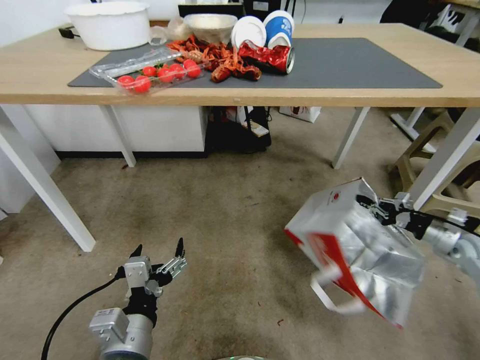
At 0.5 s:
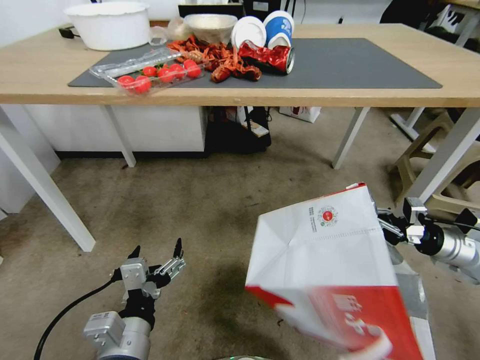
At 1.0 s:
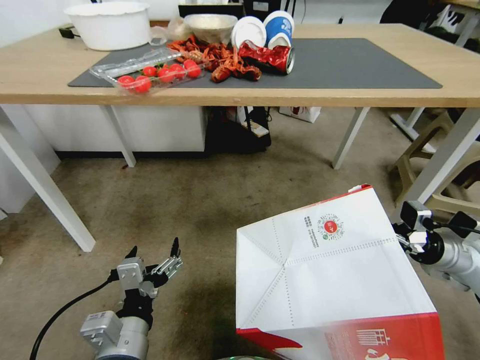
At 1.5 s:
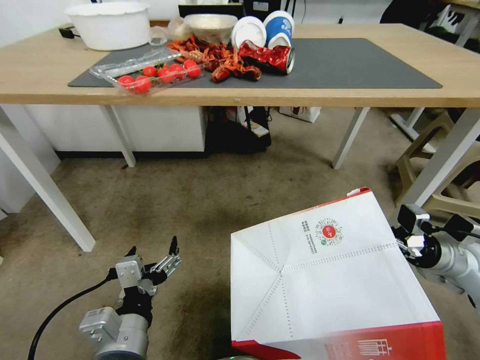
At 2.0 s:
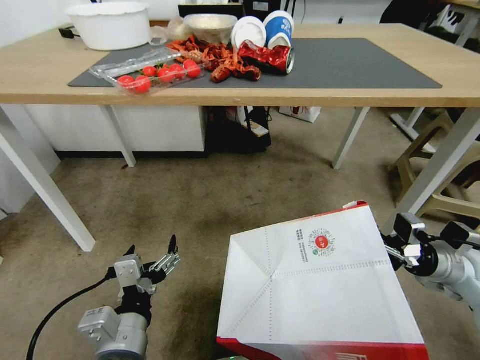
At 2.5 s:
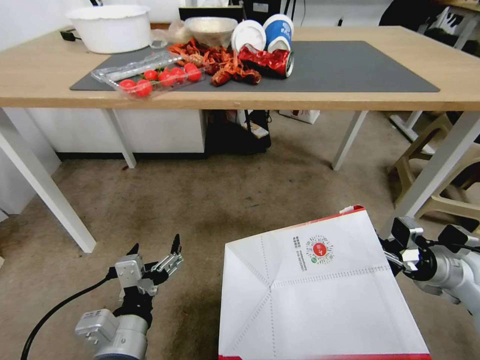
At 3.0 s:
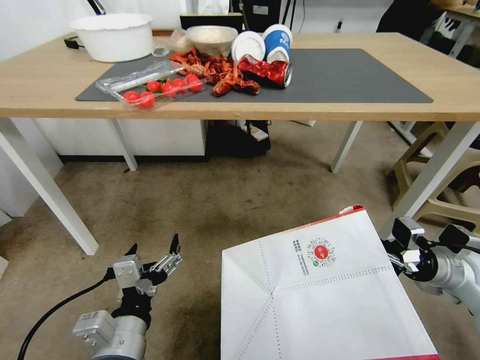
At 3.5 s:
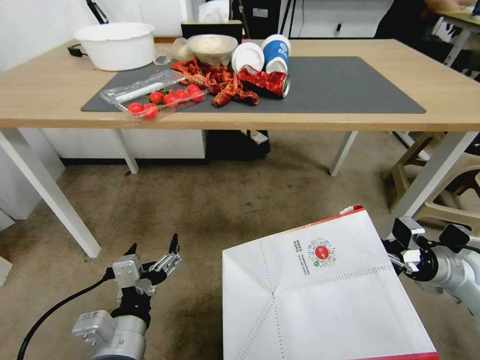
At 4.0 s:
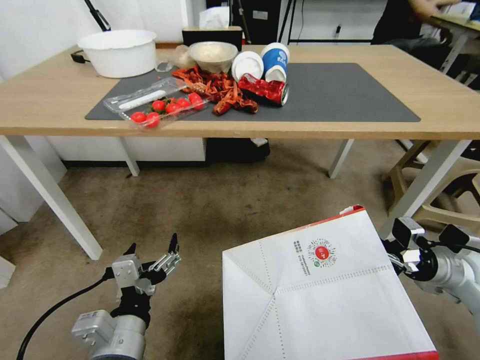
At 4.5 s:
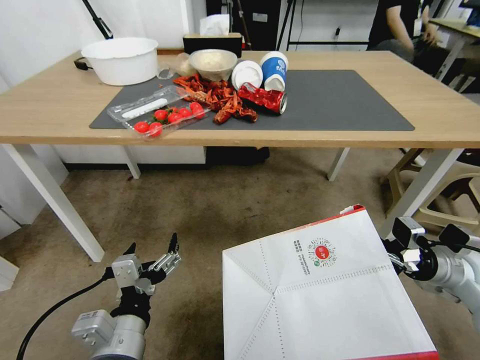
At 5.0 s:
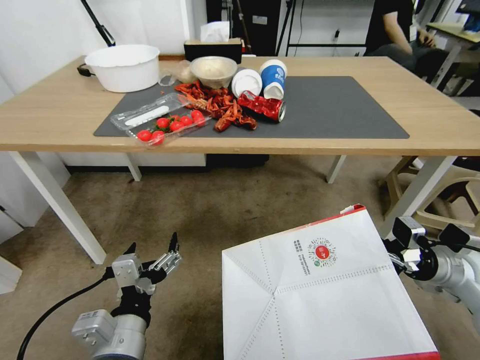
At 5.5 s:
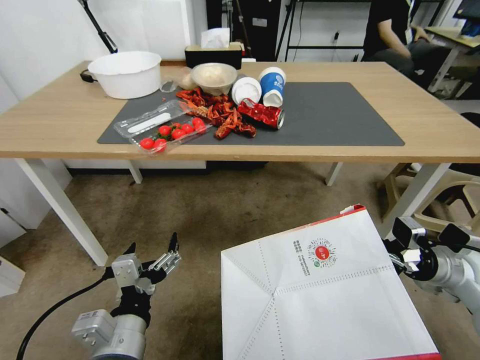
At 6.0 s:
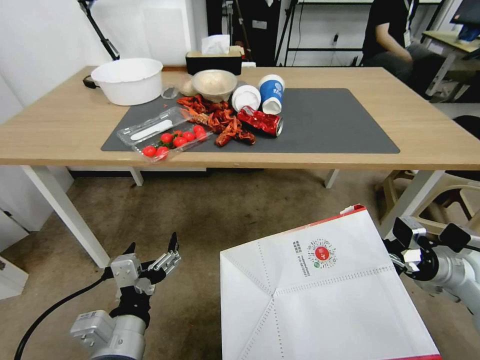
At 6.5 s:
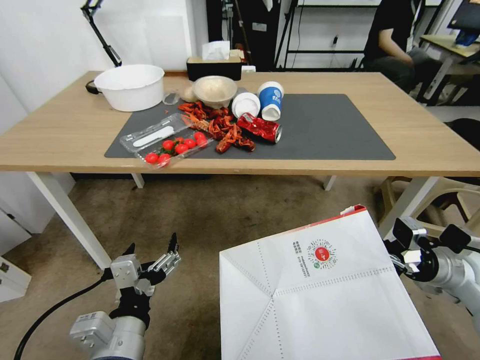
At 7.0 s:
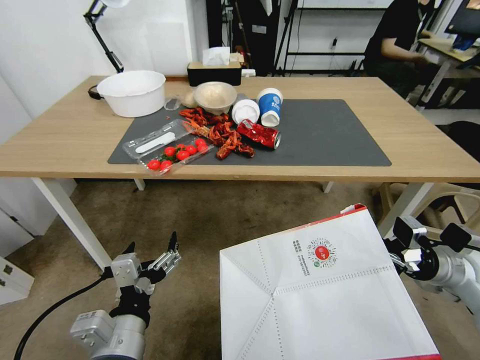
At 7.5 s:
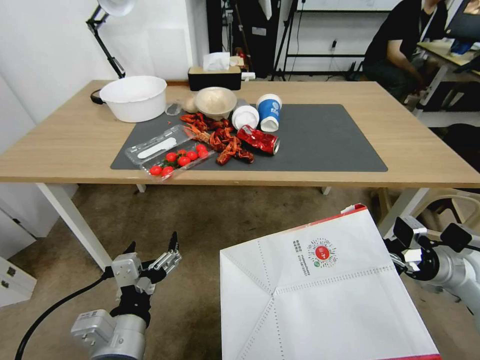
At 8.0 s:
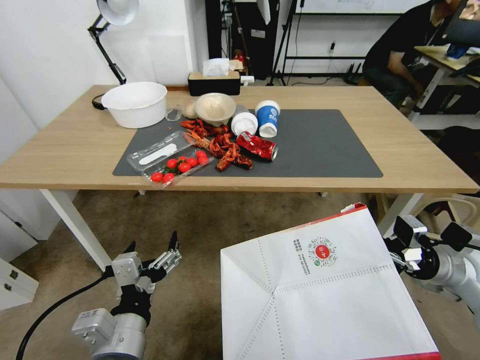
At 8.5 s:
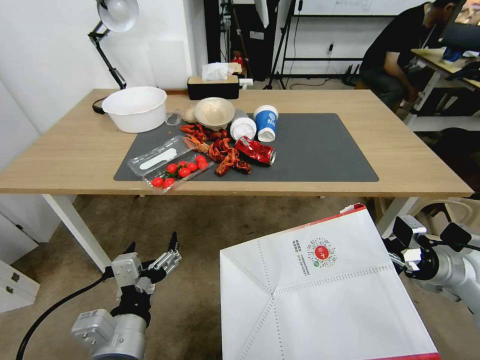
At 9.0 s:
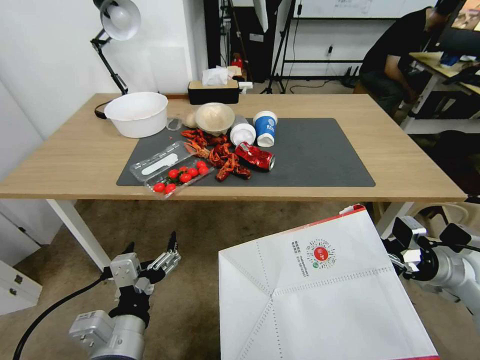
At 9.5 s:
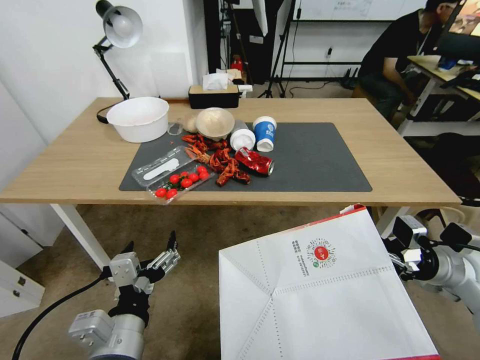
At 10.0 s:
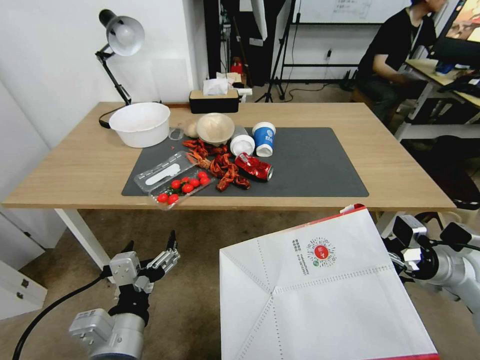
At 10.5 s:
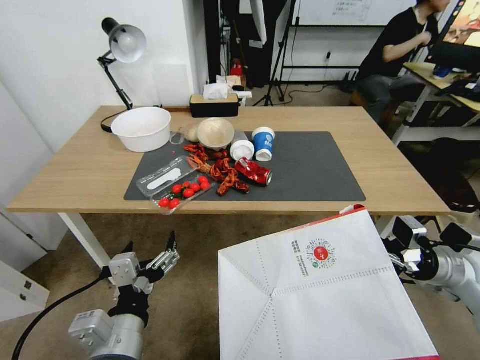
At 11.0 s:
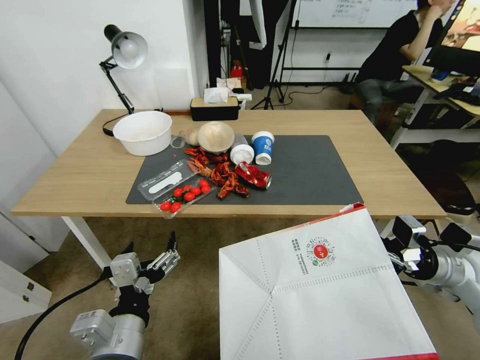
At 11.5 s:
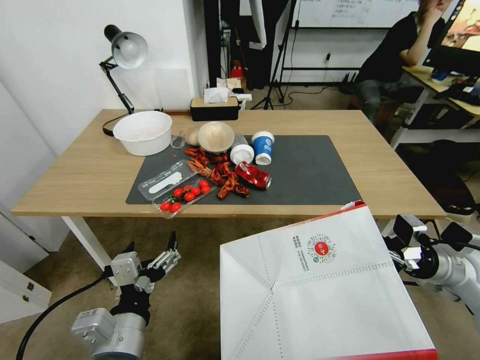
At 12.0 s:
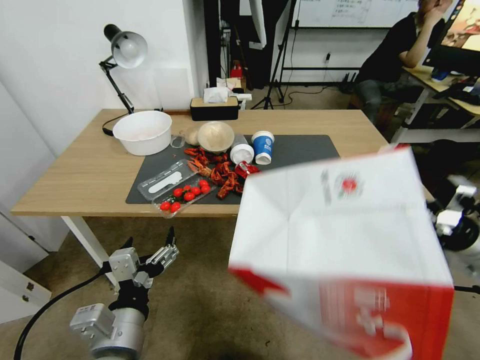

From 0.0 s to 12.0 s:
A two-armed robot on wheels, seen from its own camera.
Task of the whole recording: Pick up the food delivery bag from the floor and place it on the table.
From 0.0 s to 2.0 s: The right gripper moves to the left and backward, roughly 10 cm.
From 10.0 s to 12.0 s: The right gripper travels upward by about 5 cm.

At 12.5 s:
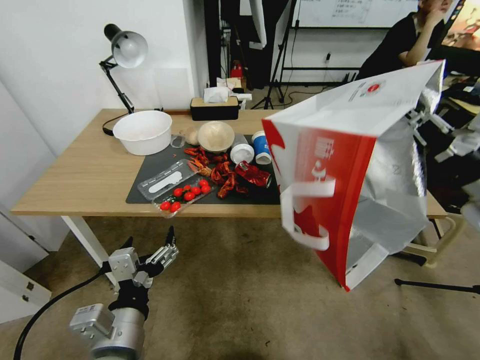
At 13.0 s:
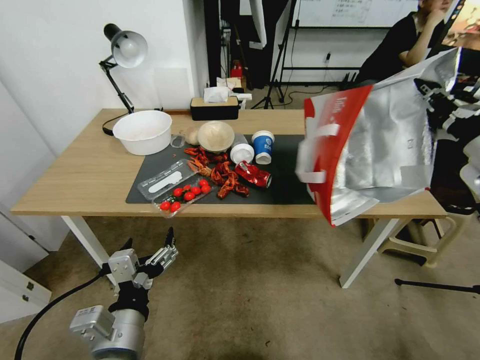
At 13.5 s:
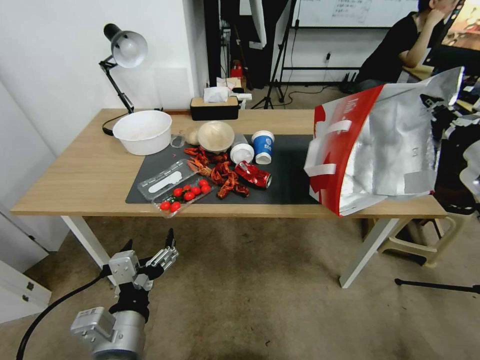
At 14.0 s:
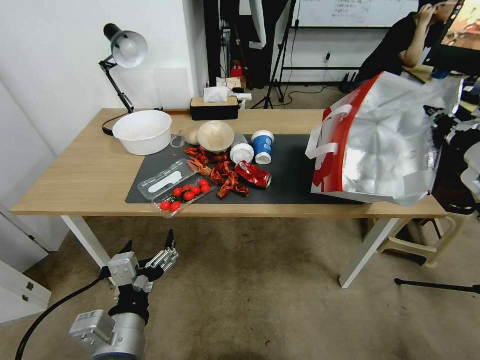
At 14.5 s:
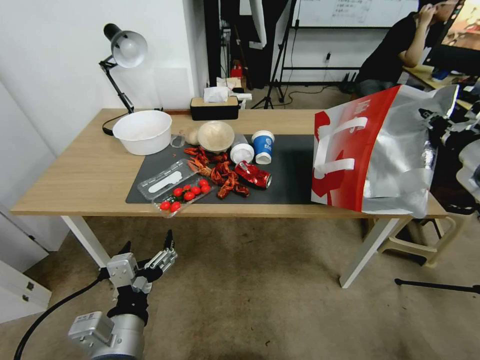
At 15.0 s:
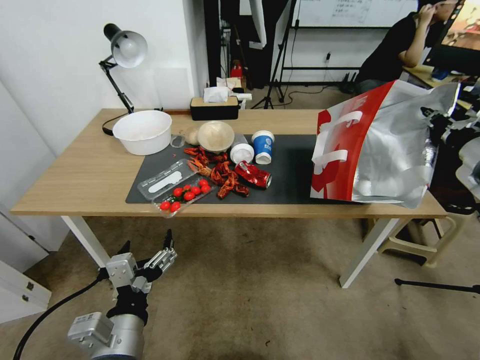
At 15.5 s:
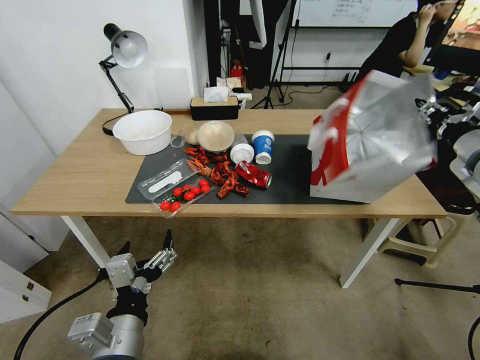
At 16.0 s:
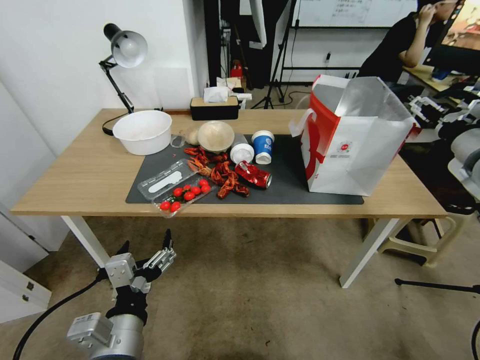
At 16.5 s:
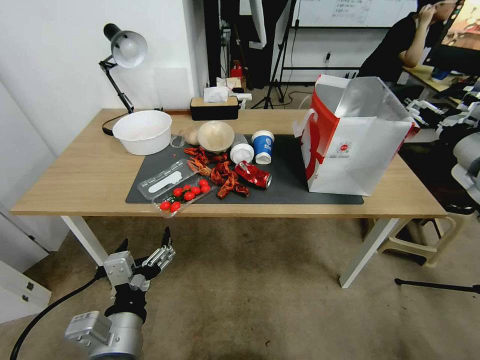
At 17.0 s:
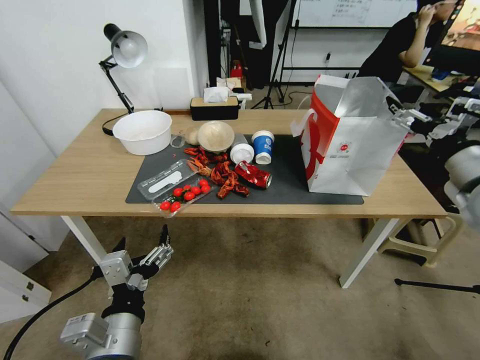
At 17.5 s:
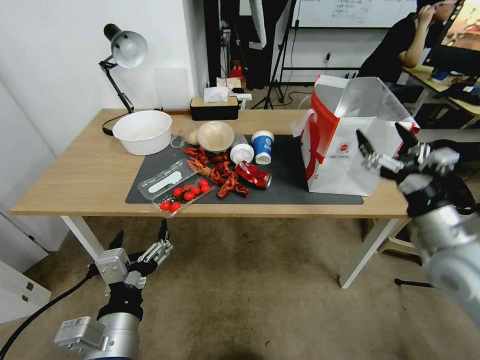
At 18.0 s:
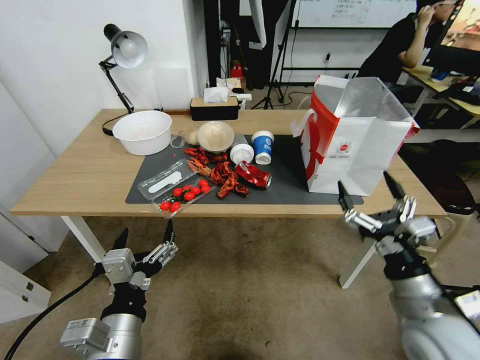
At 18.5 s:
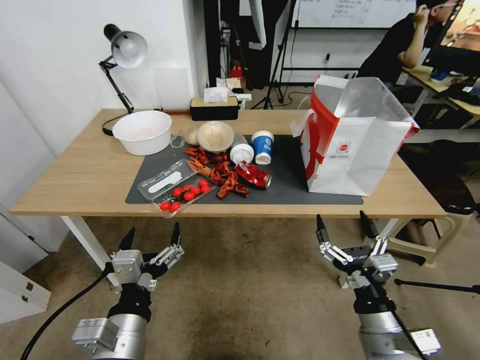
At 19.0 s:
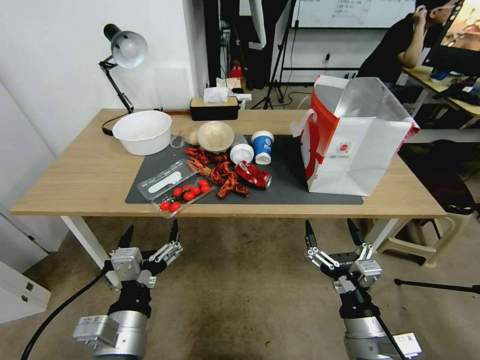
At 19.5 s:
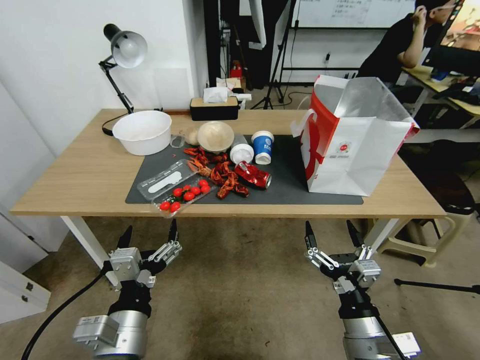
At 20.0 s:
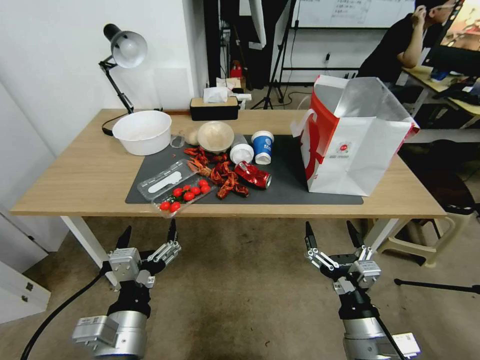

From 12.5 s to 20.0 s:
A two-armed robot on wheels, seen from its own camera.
Task of the whole recording: Pick up the food delivery bag from the floor and place it on the table.
From 12.5 s to 14.5 s: The right gripper heads forward, covering roughly 10 cm.
From 14.5 s to 16.5 s: The right gripper opens.
From 16.5 s to 18.0 s: The right gripper moves backward, downward and to the left, roughly 30 cm.
From 18.0 s to 20.0 s: The right gripper shifts roughly 15 cm to the left, downward and backward.

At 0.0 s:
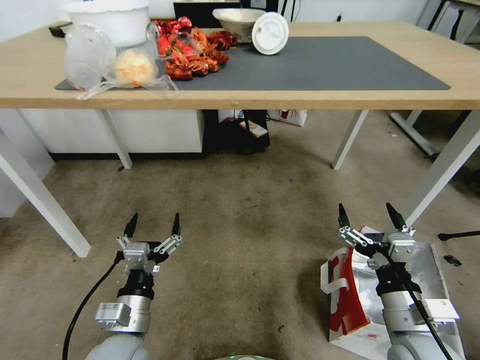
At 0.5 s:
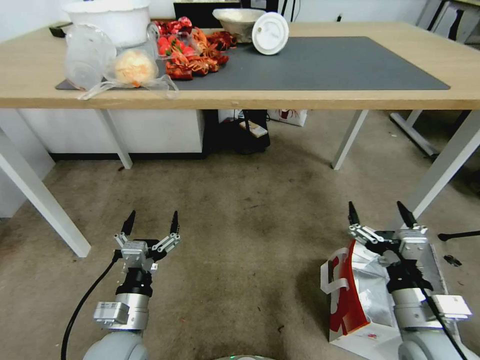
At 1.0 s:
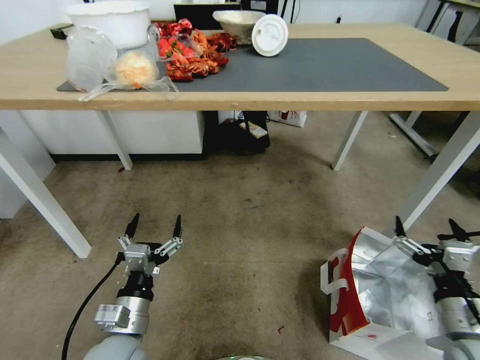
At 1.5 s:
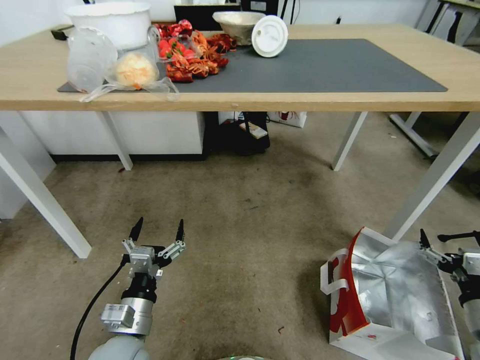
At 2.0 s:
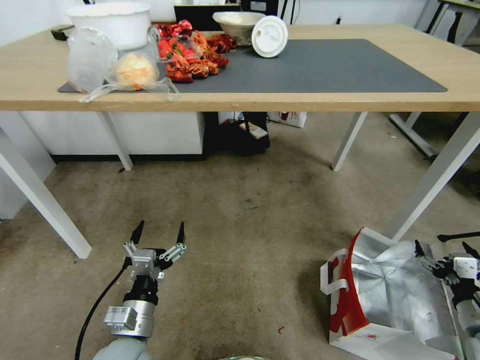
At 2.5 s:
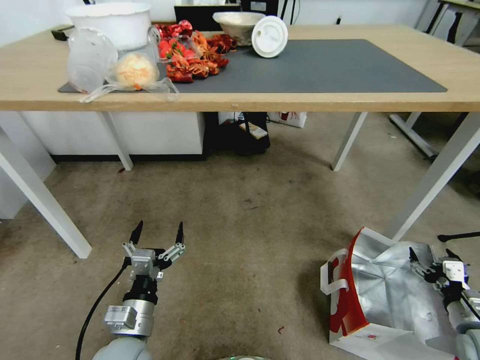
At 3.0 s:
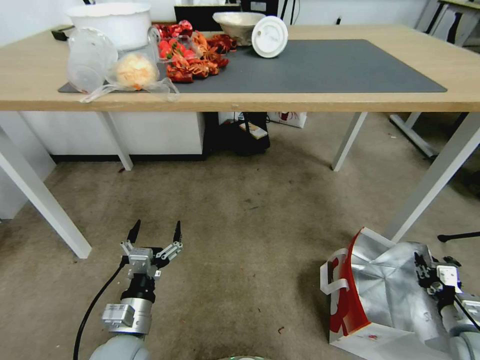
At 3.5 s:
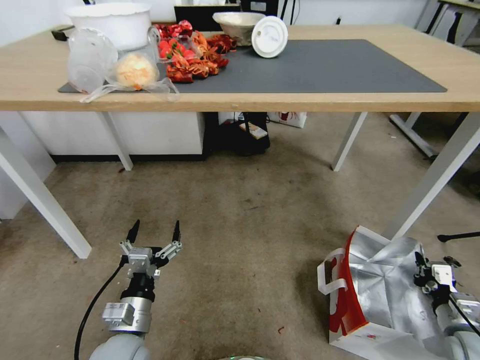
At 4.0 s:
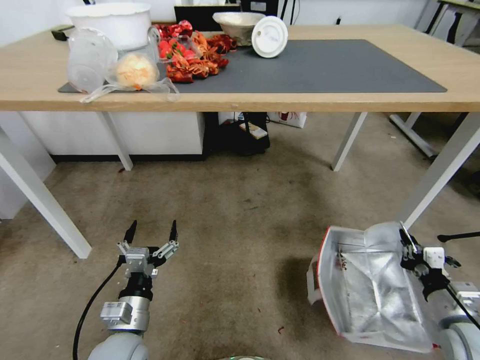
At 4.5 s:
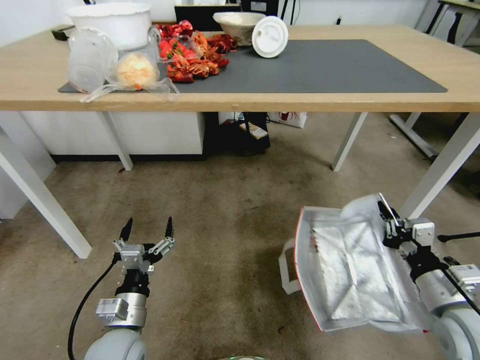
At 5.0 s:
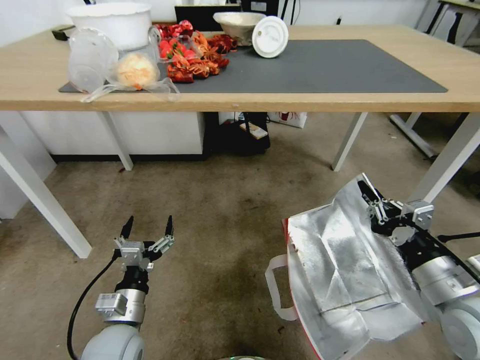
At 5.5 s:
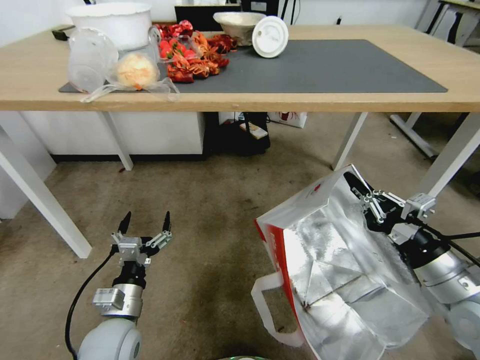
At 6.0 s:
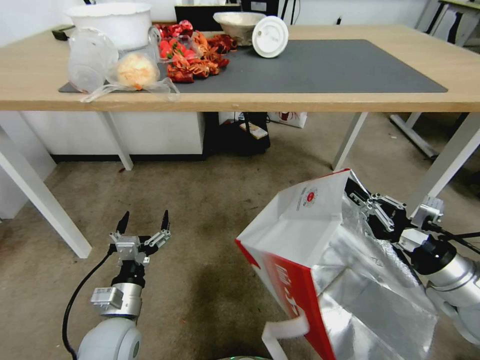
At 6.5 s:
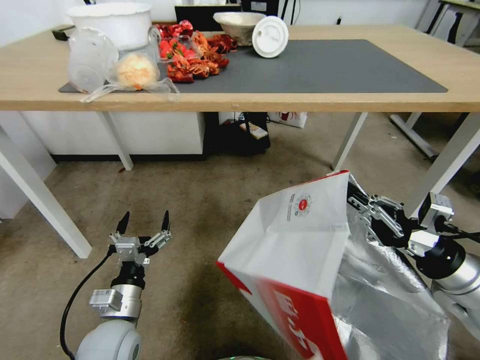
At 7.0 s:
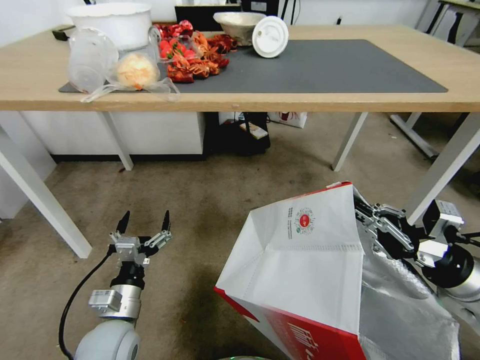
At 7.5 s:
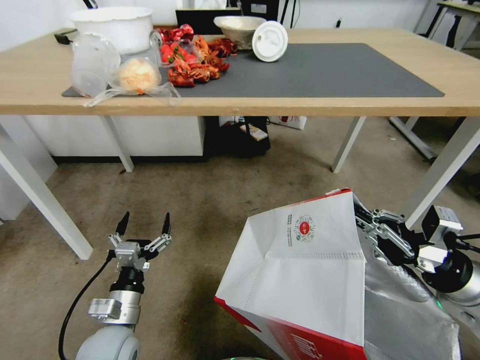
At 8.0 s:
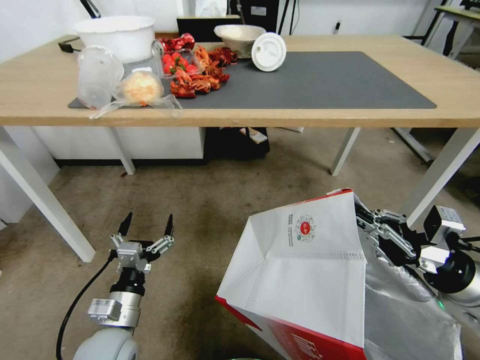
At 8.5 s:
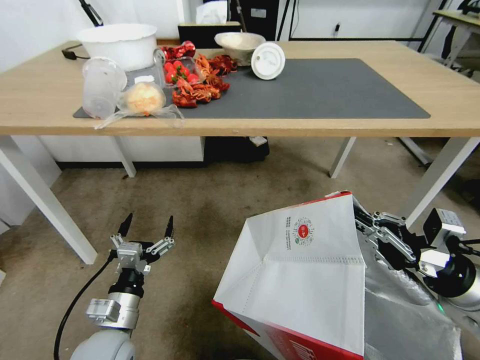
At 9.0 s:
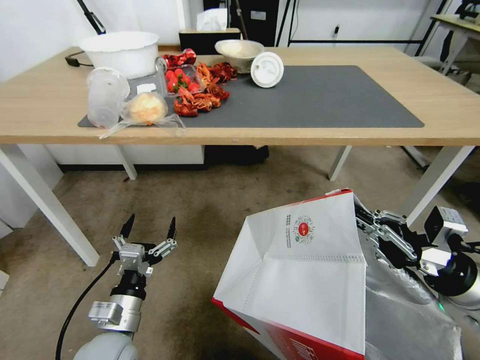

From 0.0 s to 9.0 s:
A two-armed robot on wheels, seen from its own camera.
Task of the whole recording: Pick up the food delivery bag from the floor and place it on the table.
From 0.0 s to 2.0 s: The right gripper travels to the right and downward by about 20 cm.
From 2.0 s to 4.5 s: The right gripper travels to the left and upward by approximately 15 cm, and closes.
From 4.5 s to 7.0 s: The right gripper heads upward, covering about 10 cm.
